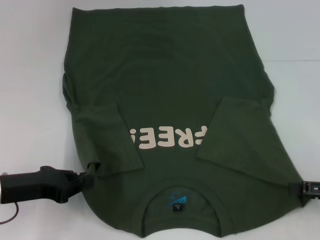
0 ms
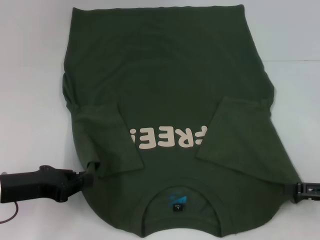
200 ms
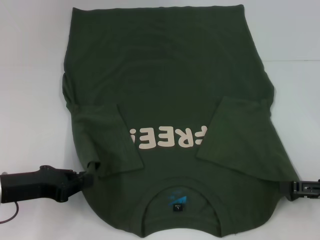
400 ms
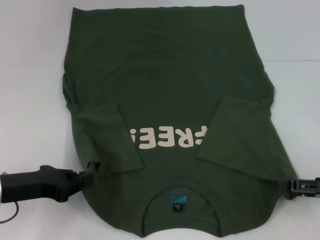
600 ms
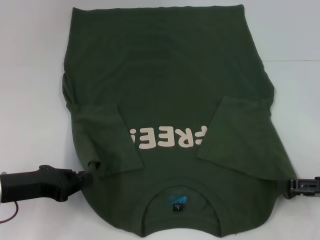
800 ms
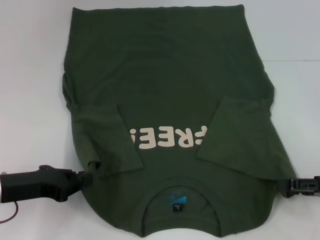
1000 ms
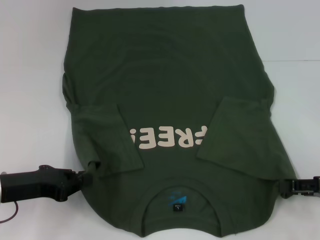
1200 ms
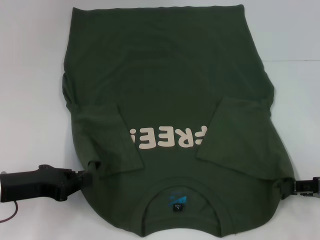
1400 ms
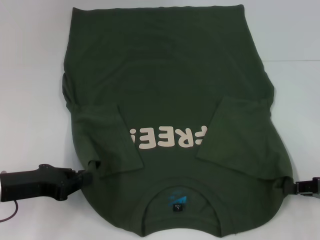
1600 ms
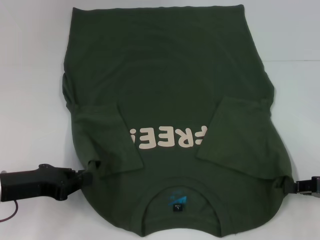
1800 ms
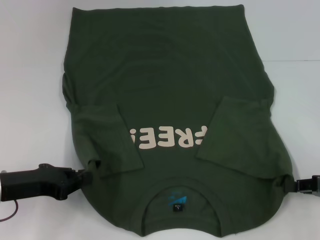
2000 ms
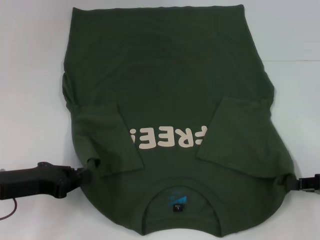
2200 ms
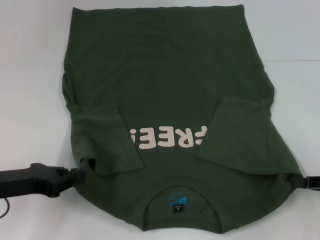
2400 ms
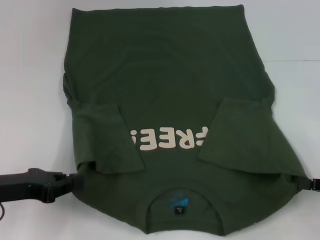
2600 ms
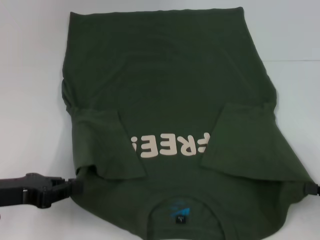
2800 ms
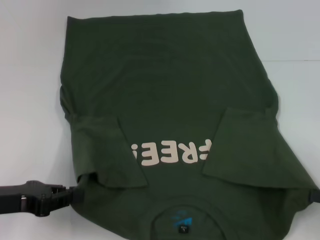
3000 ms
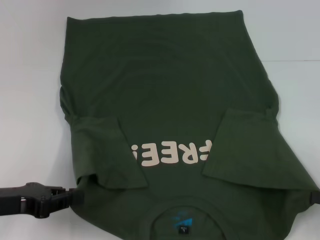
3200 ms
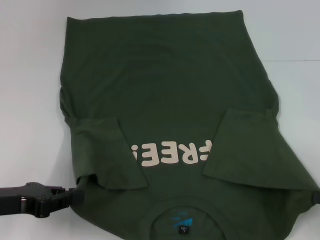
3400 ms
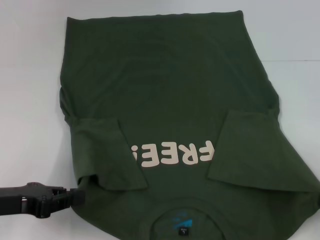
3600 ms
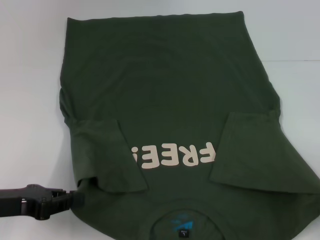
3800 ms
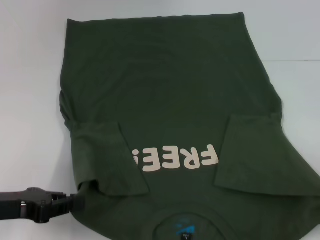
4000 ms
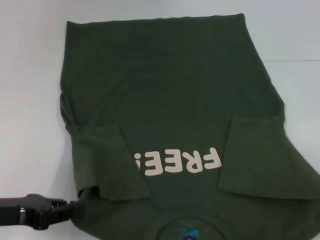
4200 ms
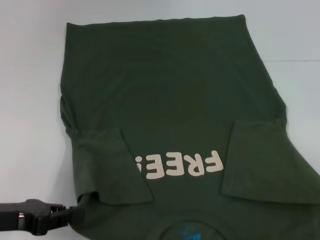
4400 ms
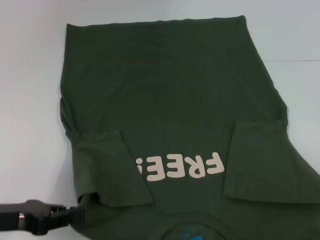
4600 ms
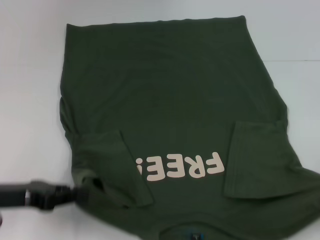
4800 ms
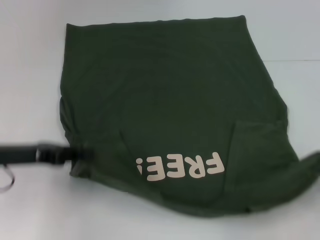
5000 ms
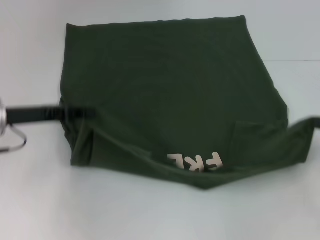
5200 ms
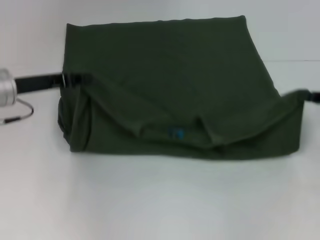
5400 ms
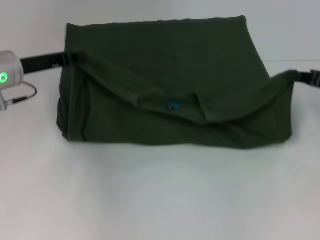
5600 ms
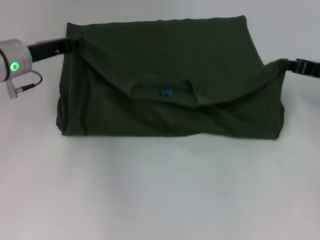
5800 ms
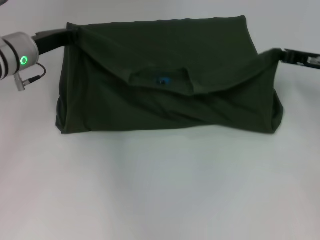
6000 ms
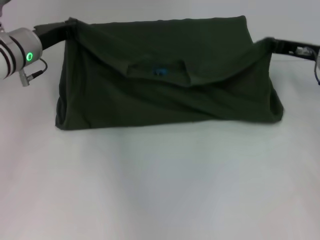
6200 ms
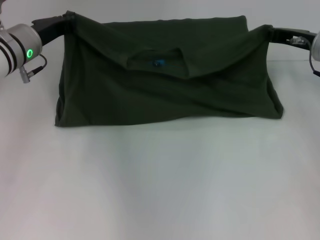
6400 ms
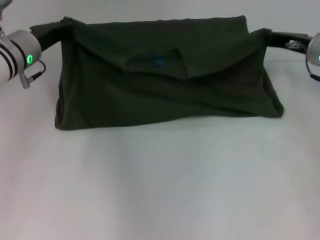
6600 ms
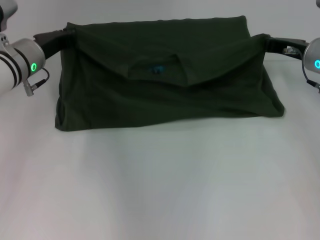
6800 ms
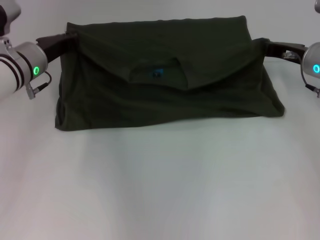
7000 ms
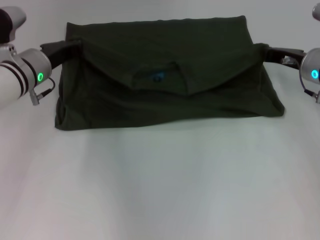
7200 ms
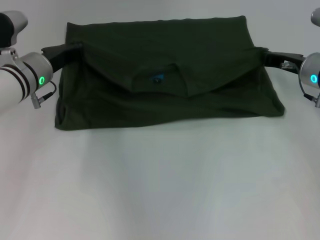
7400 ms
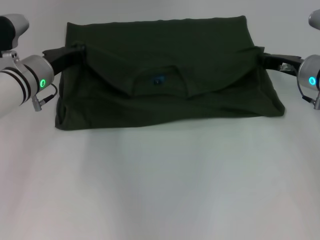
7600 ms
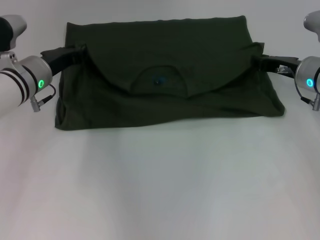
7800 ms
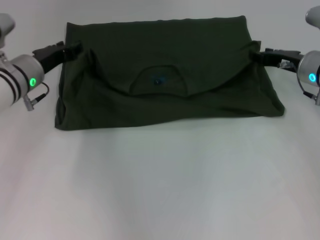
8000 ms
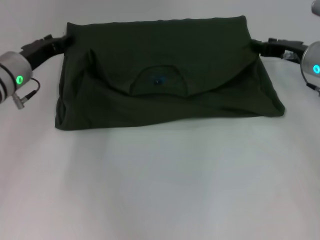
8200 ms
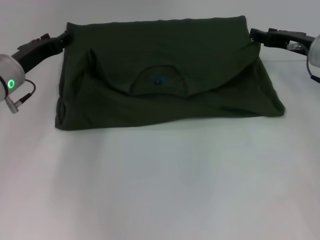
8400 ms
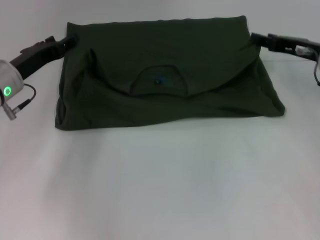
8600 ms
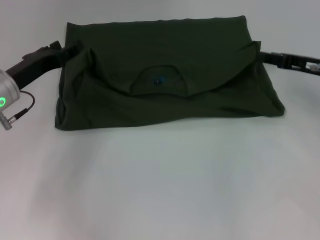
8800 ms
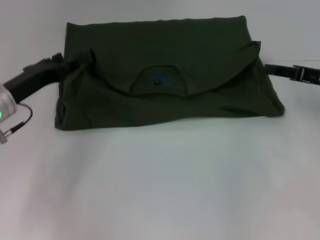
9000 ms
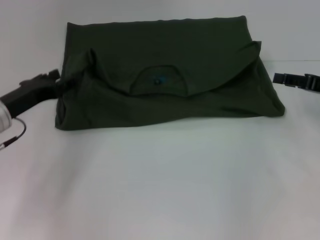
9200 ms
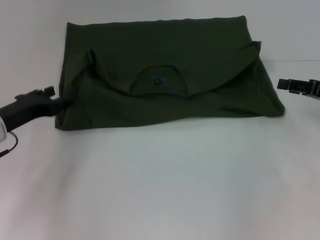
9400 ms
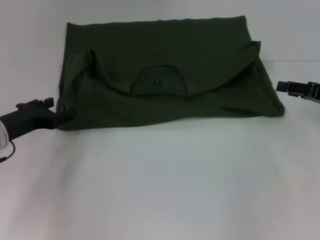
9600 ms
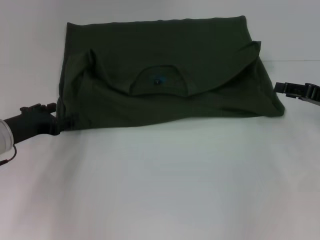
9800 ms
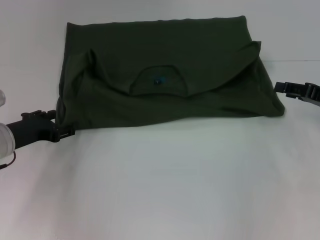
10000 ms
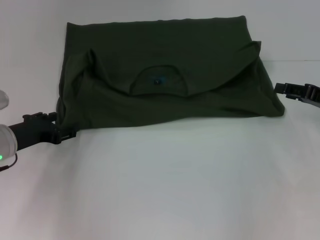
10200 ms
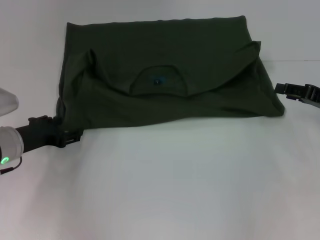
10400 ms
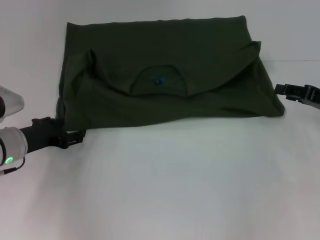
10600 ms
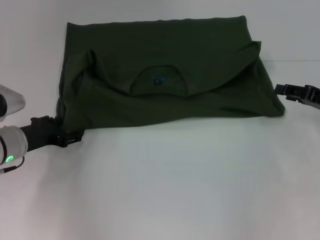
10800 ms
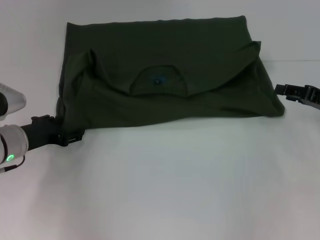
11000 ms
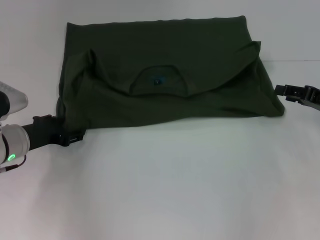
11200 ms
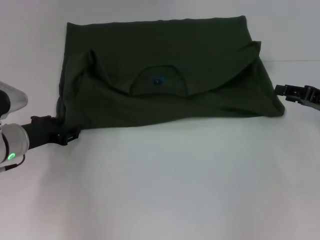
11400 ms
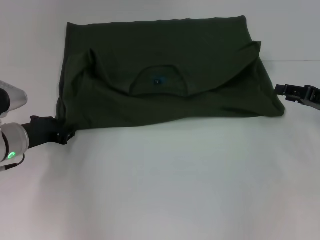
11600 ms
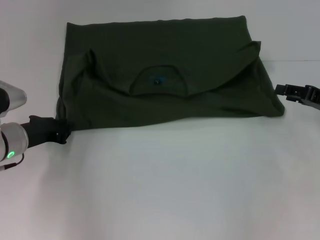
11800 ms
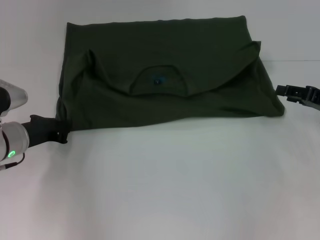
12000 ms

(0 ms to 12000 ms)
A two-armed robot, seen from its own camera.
Step, 800 ms - 7600 ms: Fold the clothes with your left hand.
Step, 800 ms - 7600 ms: Fold the clothes with your right hand.
0 ms - 1600 ms: The right gripper closes its fingers.
1600 ms - 3000 ms: The right gripper shifts some 5 cm backward, and closes its fingers.
3000 ms - 4400 ms: There are only small adjustments of the grippers.
4400 ms - 6000 ms: The left gripper shifts roughly 20 cm forward; the right gripper travels forward and to the left by approximately 25 cm.
6000 ms - 7600 ms: The right gripper shifts by some 5 cm.
7600 ms - 9000 ms: The right gripper shifts some 10 cm to the right and backward, and opens up. Meanwhile the left gripper shifts some 5 cm backward, and opens its fingers.
9000 ms - 10400 ms: The left gripper is displaced downward by some 5 cm.
10400 ms - 12000 ms: The left gripper closes.

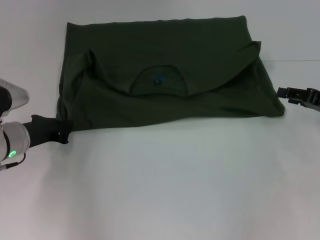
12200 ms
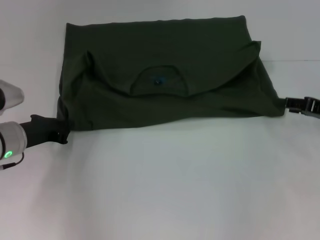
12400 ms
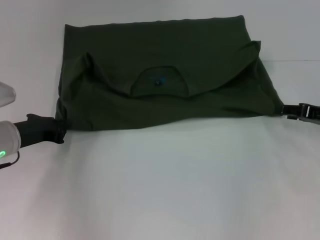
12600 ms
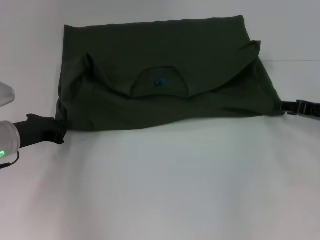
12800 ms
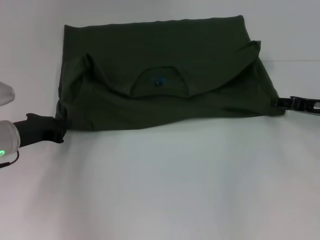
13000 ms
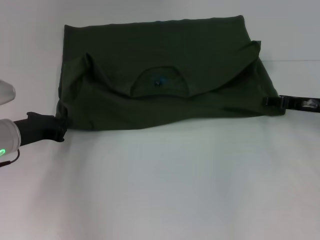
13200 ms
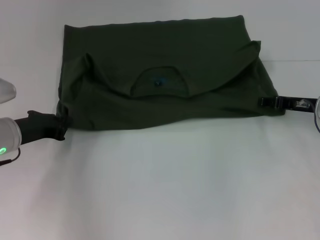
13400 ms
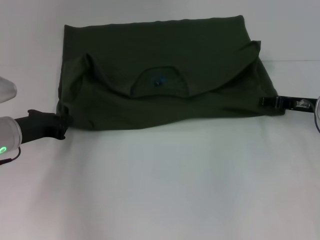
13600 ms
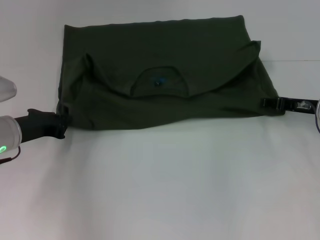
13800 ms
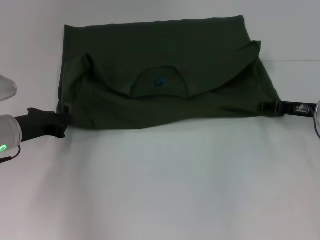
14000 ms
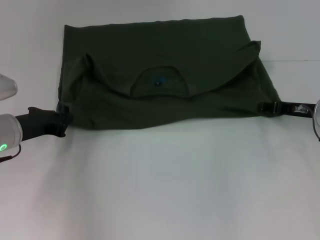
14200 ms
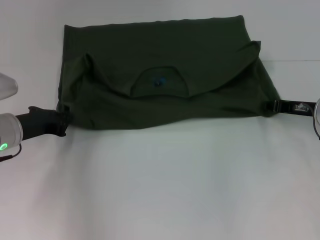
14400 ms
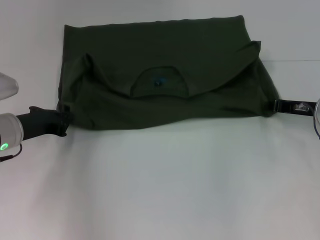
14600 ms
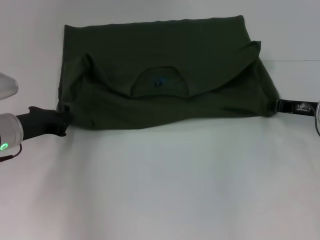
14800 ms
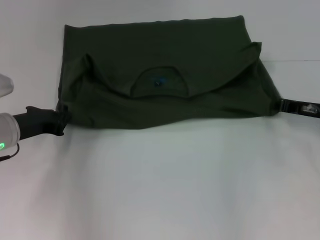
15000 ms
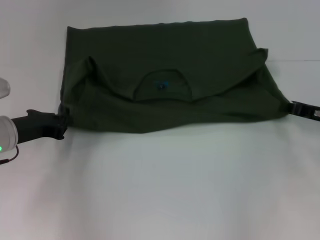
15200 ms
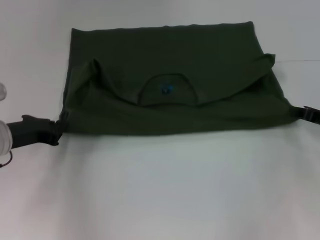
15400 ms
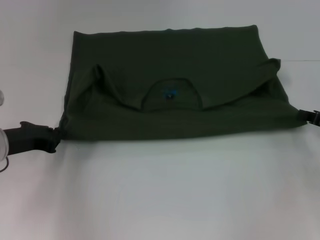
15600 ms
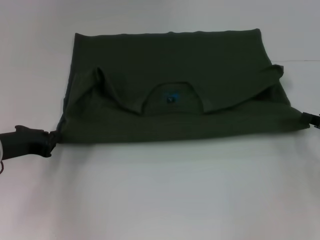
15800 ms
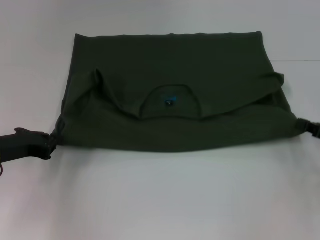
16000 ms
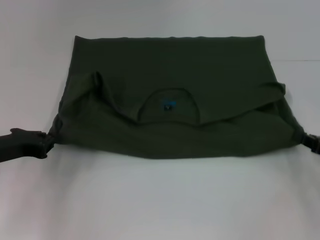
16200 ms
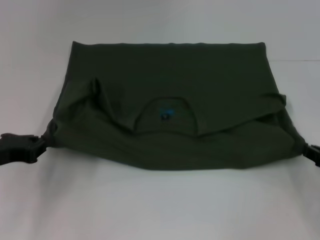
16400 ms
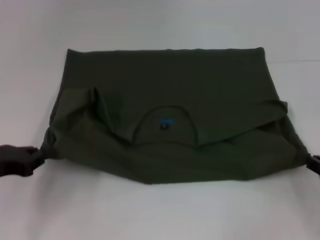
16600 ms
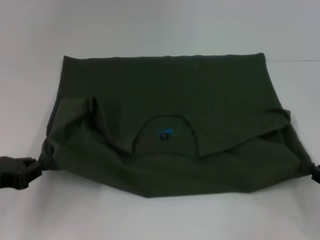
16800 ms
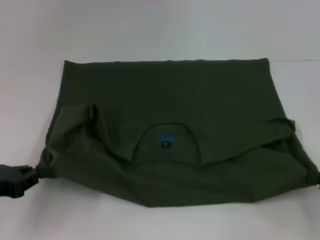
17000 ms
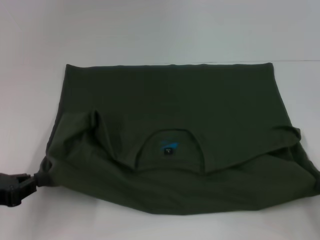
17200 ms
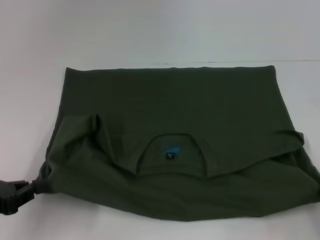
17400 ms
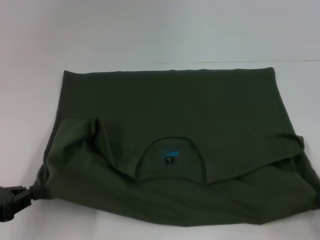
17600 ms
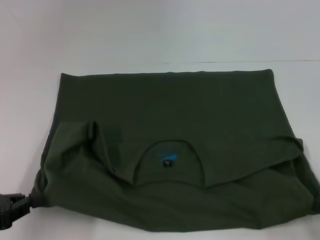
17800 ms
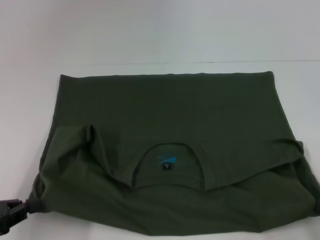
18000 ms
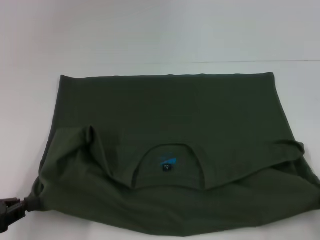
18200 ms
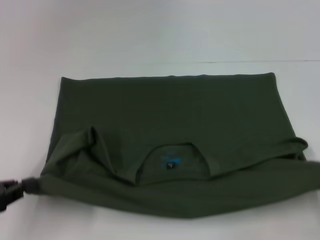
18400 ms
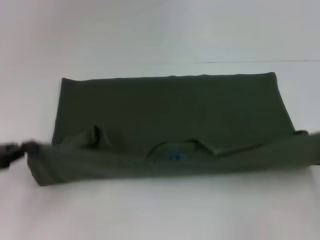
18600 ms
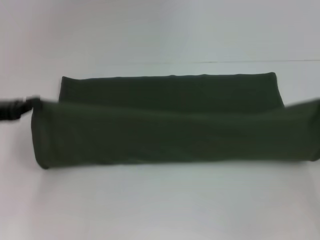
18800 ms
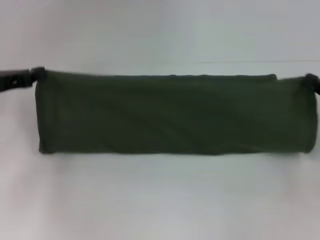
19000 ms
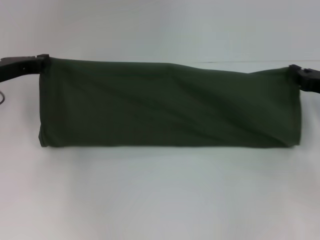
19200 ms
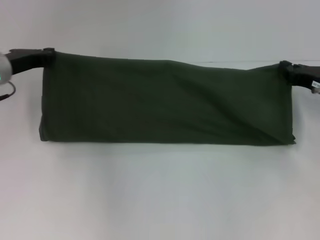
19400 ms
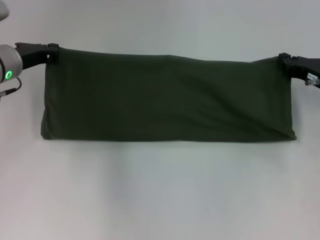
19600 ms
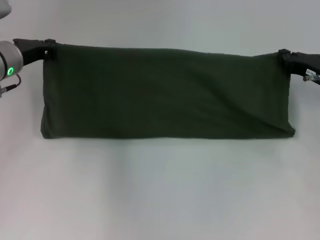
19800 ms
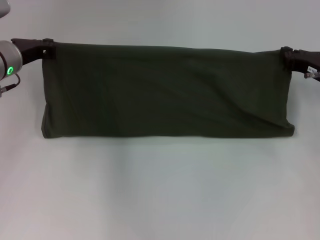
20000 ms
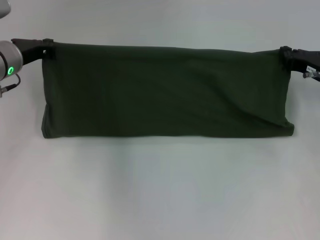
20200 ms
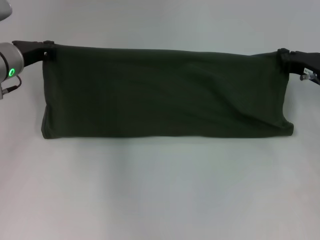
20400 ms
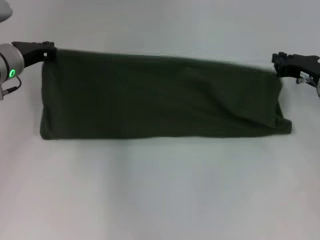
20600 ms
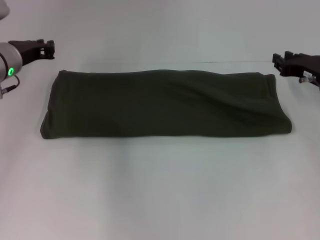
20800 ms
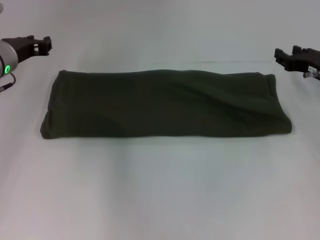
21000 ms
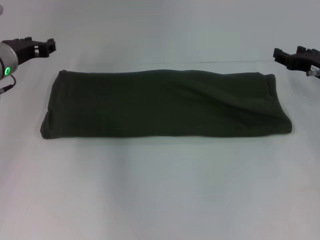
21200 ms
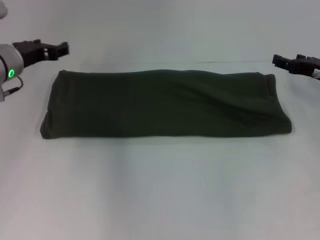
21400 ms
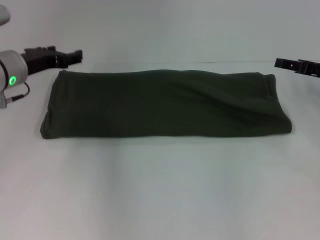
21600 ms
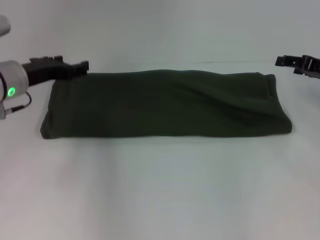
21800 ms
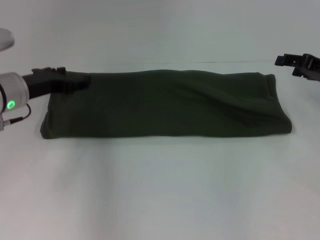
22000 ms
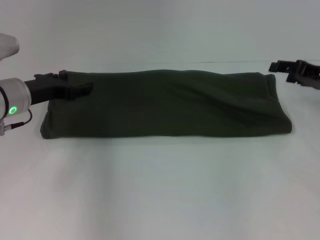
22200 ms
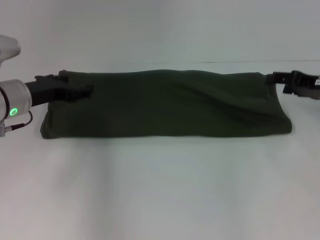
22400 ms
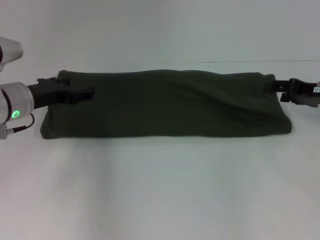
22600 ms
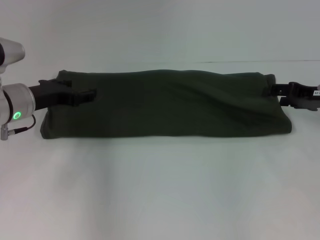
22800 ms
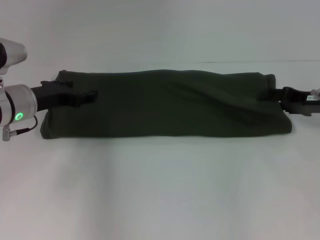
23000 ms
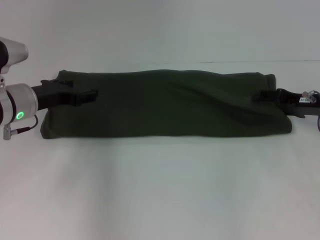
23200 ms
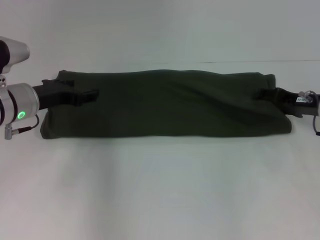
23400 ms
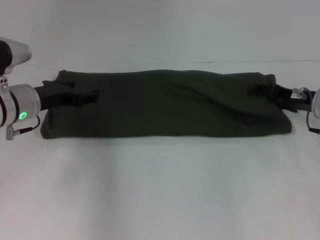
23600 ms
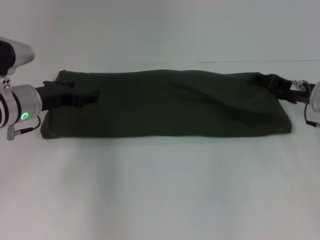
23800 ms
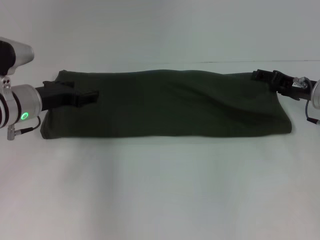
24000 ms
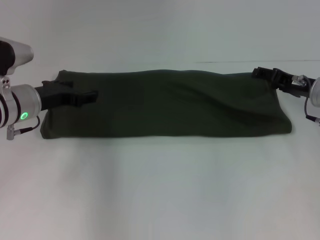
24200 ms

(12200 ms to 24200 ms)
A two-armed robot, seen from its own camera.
Step, 12200 ms - 18200 ms: Pull the clothes with your left hand.
Step, 12200 ms - 18200 ms: Pull the clothes with your right hand.
12200 ms - 13800 ms: The right gripper heads to the left, covering approximately 5 cm.
13800 ms - 15200 ms: The right gripper closes.
15200 ms - 16600 ms: The left gripper travels backward by some 10 cm. The right gripper travels backward by about 10 cm.
16600 ms - 18200 ms: The grippers both shift backward by about 5 cm.
18200 ms - 19800 ms: Both grippers travel together forward, about 25 cm.
19800 ms - 21200 ms: The right gripper opens its fingers, while the left gripper opens up.
21200 ms - 22600 ms: The left gripper heads backward, covering some 5 cm, and opens.
22600 ms - 24200 ms: The grippers move only a little.
